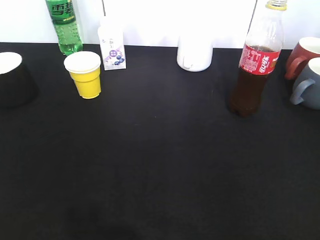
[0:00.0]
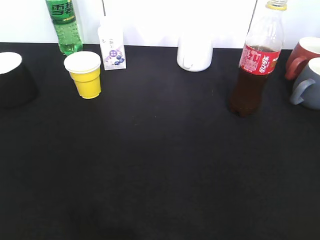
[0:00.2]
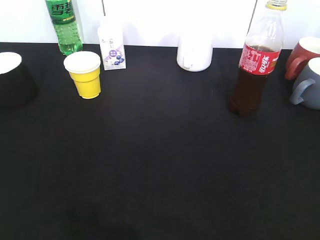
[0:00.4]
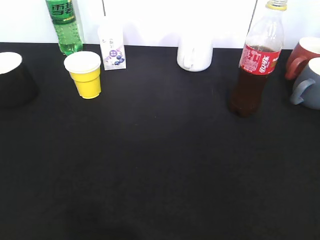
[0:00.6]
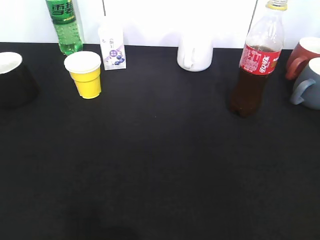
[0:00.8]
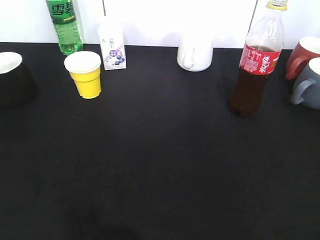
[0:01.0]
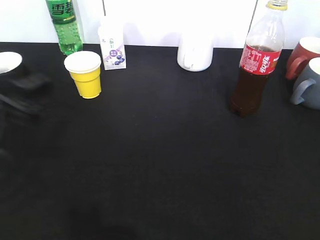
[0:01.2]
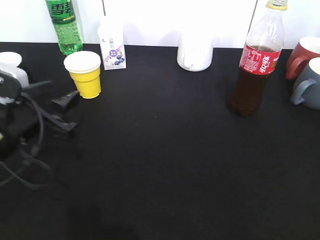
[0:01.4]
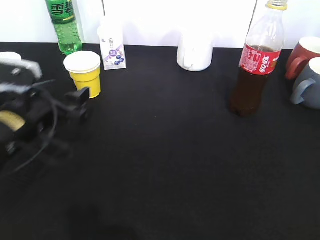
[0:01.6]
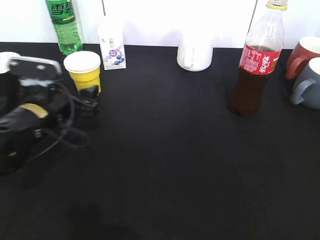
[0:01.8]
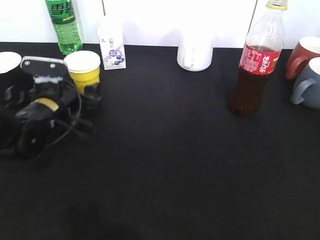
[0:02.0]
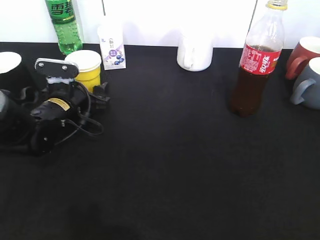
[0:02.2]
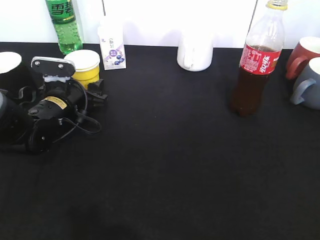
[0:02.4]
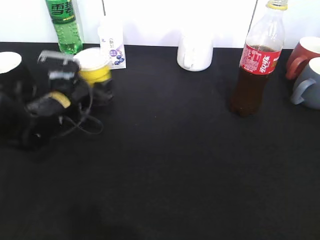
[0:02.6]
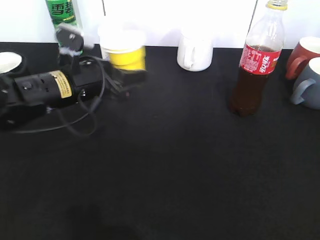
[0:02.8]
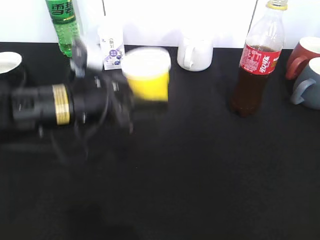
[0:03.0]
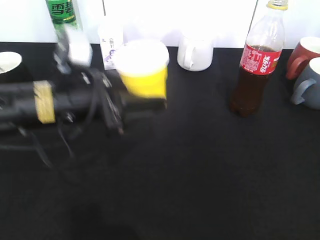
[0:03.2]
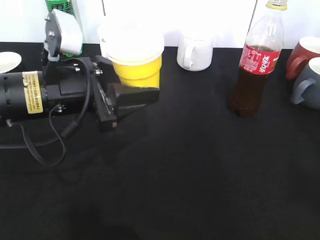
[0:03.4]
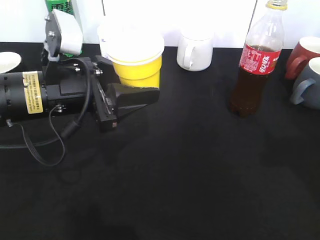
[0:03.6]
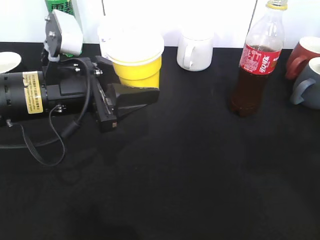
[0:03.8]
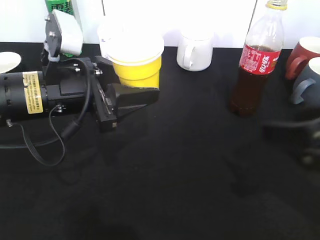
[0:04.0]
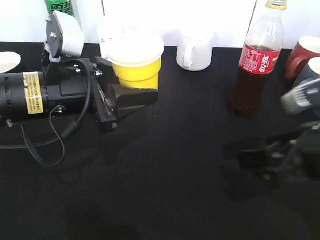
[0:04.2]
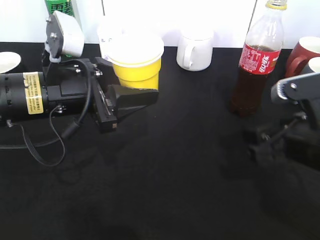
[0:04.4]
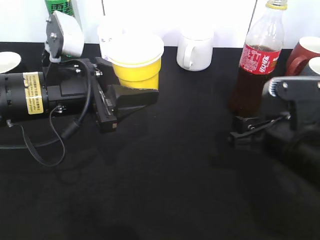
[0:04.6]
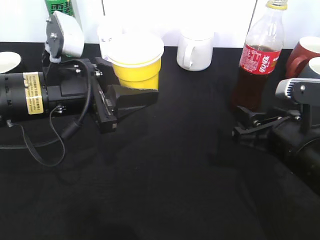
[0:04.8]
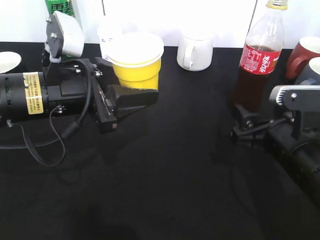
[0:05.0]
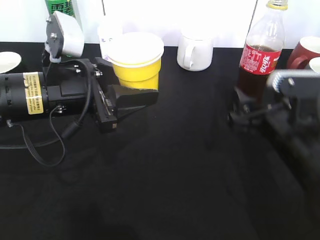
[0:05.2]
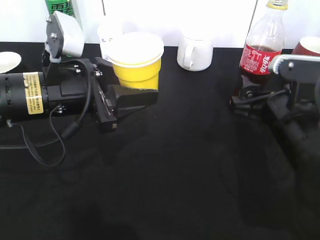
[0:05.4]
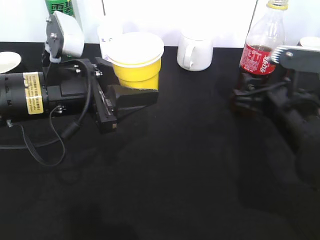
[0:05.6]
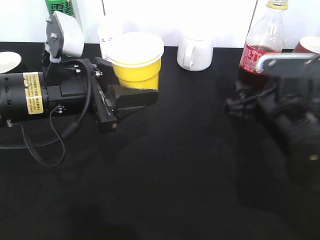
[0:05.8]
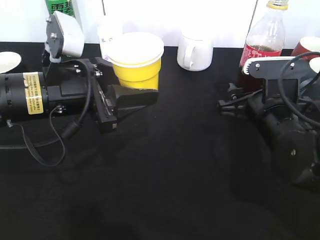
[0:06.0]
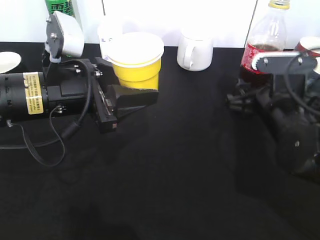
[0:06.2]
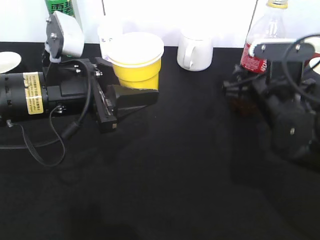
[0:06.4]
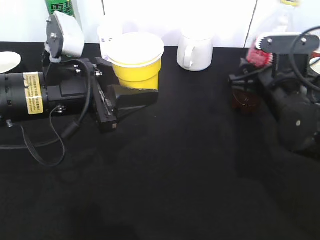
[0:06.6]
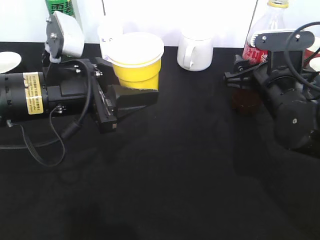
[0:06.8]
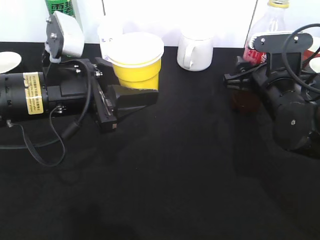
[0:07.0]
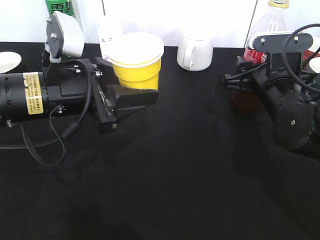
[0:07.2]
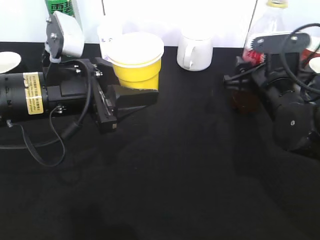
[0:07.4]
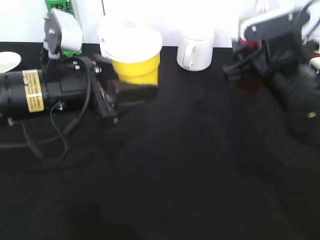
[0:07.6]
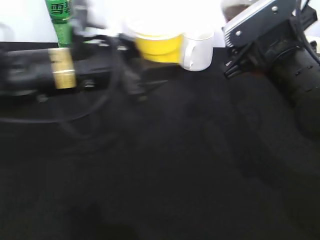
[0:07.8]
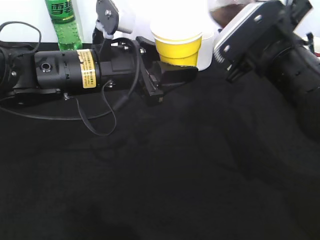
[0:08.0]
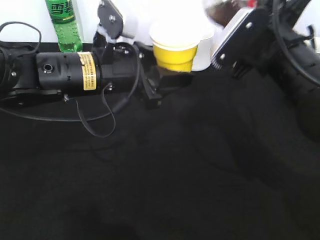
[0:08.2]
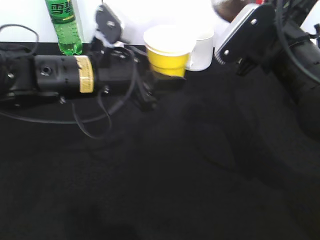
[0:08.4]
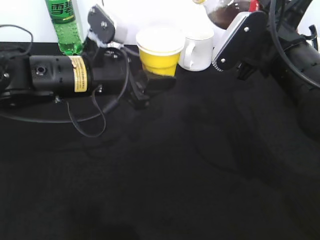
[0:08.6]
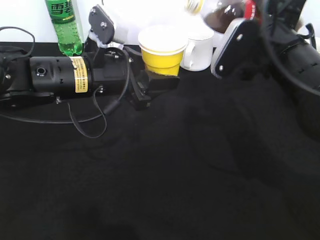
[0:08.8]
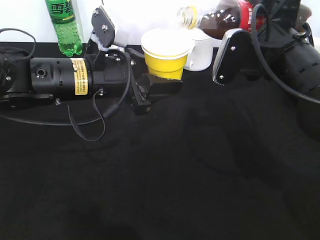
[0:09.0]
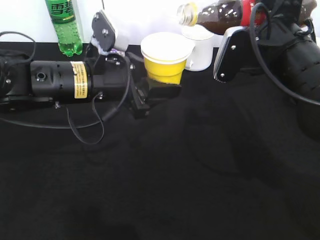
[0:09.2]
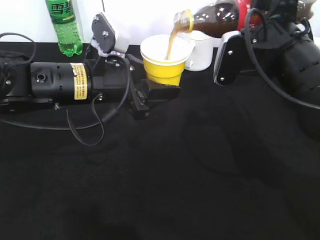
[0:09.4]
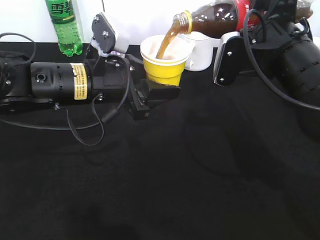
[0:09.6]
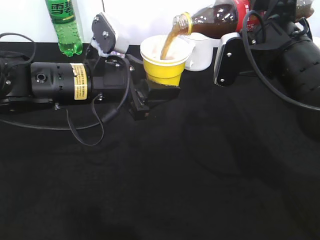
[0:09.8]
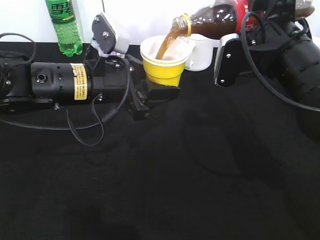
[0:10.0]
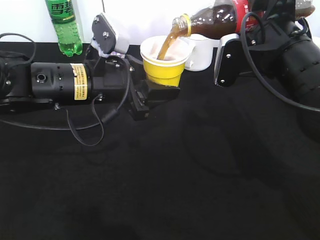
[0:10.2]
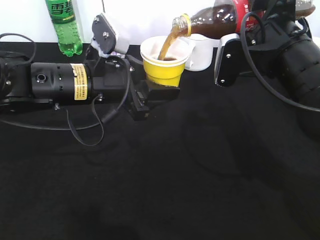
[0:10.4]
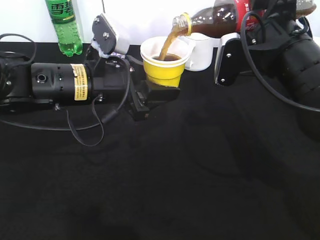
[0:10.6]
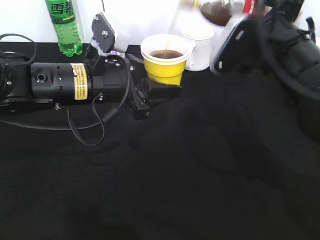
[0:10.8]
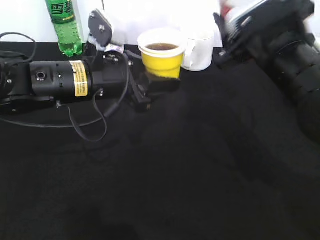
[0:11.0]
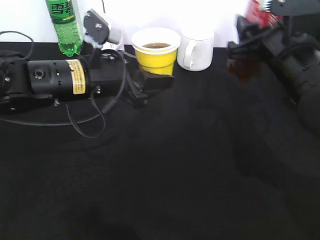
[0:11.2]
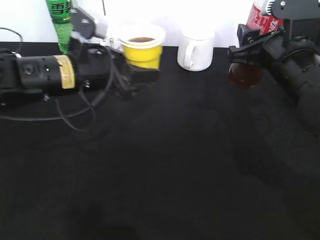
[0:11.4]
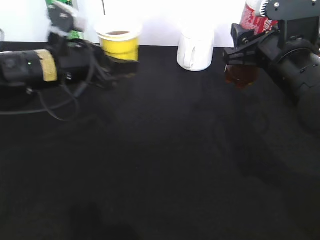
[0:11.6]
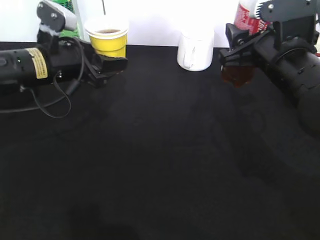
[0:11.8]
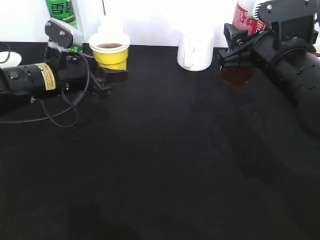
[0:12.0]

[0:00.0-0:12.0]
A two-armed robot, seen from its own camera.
Step, 0:00.0 to 0:02.2: Grasp the yellow paper cup with left gripper.
Step, 0:02.4 to 0:03.2: Lift the yellow paper cup with left gripper.
Step, 0:03.4 to 0:07.2: Grasp the bottle with cola with right gripper.
Step, 0:07.4 to 0:10.6: Pour the cola from bottle to cup with right gripper.
0:00.0 to 0:01.6: The left gripper travels forward, downward and to the right by approximately 30 cm, and opens.
0:01.6 to 0:03.0: The left gripper shifts roughly 10 cm to the right, goes forward and returns, some 10 cm each way, and closes its fingers.
0:03.0 to 0:04.4: The right gripper travels forward, downward and to the left by about 25 cm.
0:04.4 to 0:06.0: The right gripper shifts approximately 5 cm forward, and closes, then reopens.
0:06.0 to 0:07.6: The right gripper goes about 5 cm upward, and closes.
0:07.6 to 0:09.0: The left gripper shifts by approximately 5 cm.
0:09.0 to 0:10.4: The grippers stay close to where they were, moving slightly.
0:10.4 to 0:12.0: The left gripper travels to the left and forward by approximately 10 cm.

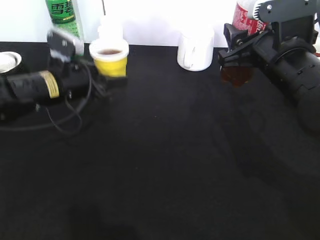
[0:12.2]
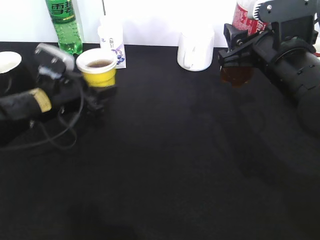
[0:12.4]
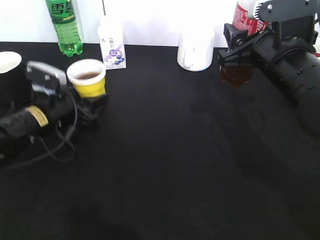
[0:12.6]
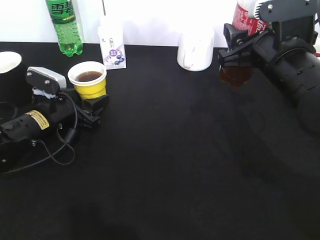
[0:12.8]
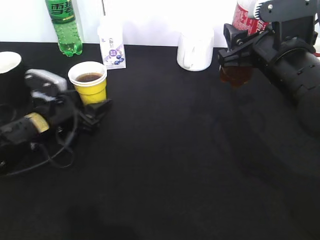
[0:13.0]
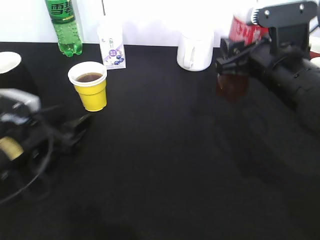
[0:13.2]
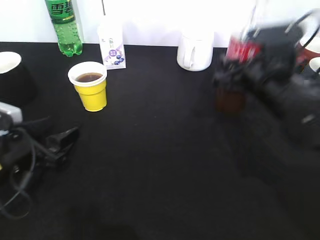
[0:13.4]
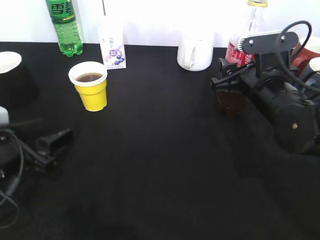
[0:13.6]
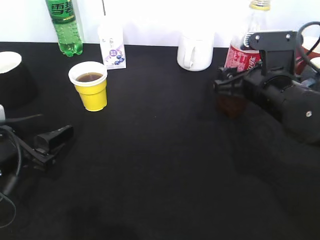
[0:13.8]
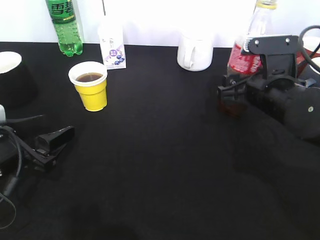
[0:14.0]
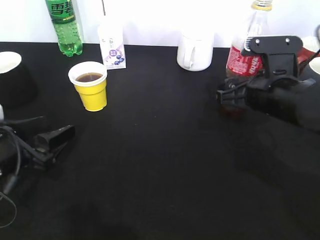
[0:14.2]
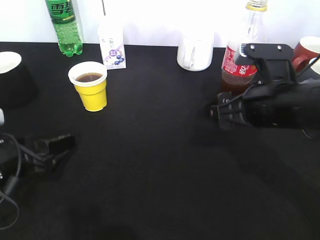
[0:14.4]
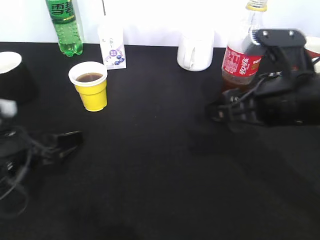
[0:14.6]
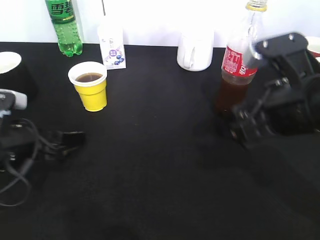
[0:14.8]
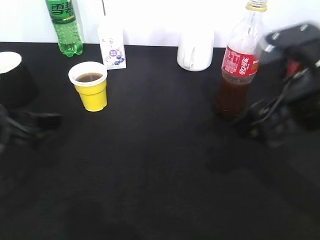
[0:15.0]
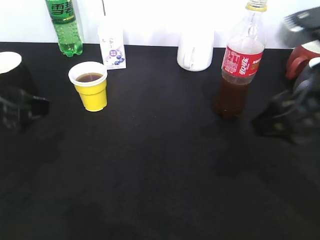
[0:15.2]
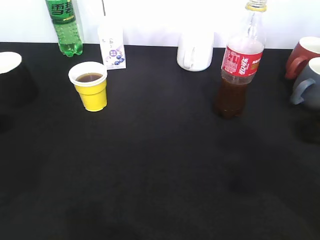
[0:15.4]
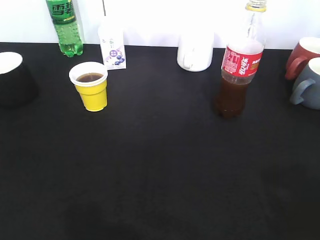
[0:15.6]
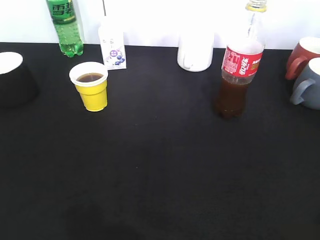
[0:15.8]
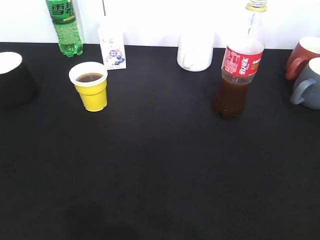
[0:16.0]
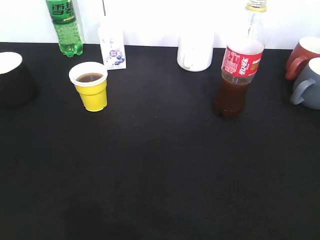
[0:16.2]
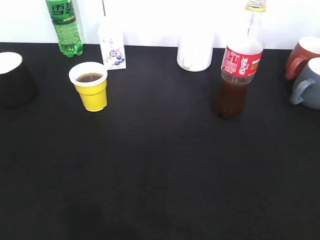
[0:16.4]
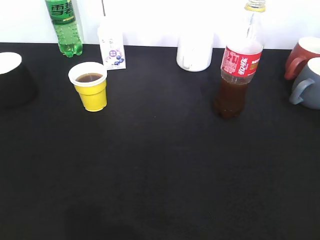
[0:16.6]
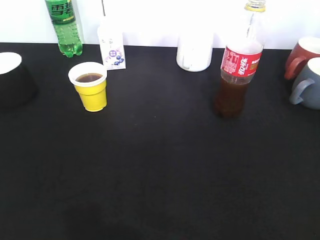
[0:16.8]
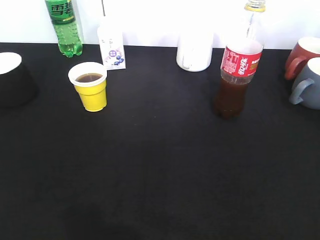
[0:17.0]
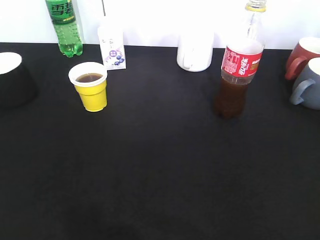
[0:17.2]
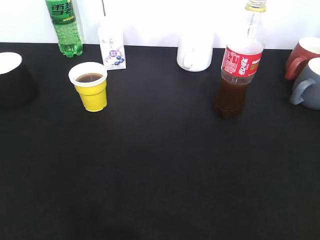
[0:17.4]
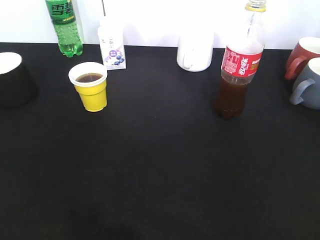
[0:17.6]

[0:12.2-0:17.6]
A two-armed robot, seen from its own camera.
Step, 0:13.4 to 0:14.8: Place the cola bottle on the table with right gripper.
0:12.2 to 0:13.6: The right gripper moves downward, about 5 cm; the left gripper goes approximately 15 cm backward and to the left, and opens its fingers.
0:13.6 to 0:15.0: The right gripper goes roughly 15 cm backward and upward, and opens up. The left gripper travels upward by approximately 5 cm.
0:15.0 to 0:16.2: The right gripper travels backward and to the right by about 25 cm. Meanwhile the left gripper travels backward, upward and to the left by some 25 cm.

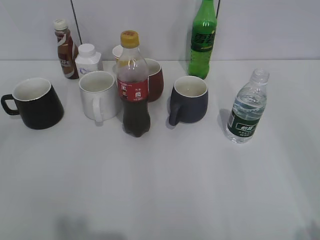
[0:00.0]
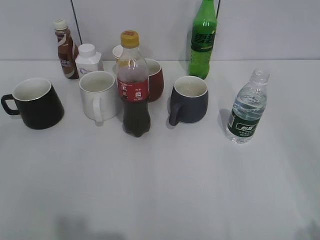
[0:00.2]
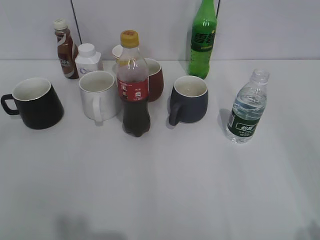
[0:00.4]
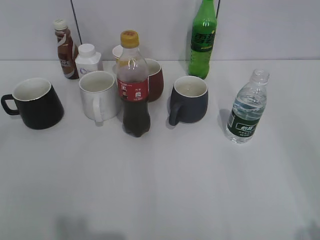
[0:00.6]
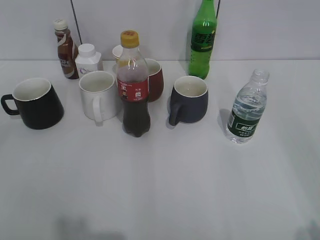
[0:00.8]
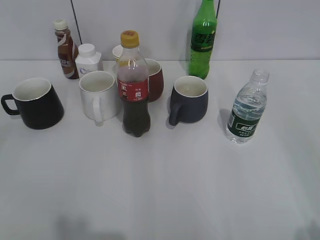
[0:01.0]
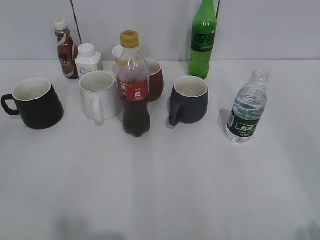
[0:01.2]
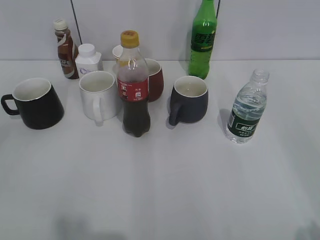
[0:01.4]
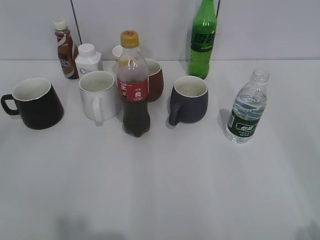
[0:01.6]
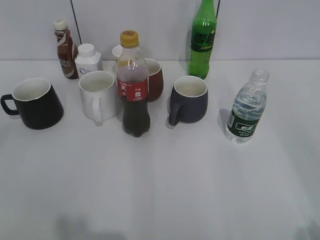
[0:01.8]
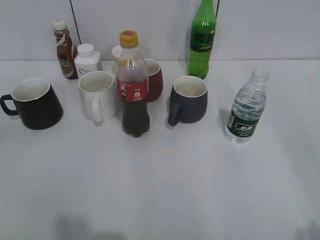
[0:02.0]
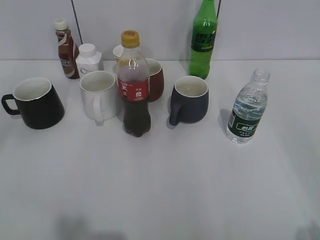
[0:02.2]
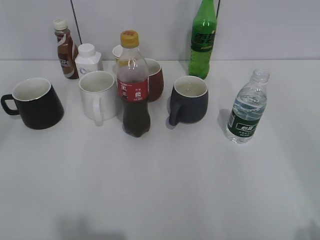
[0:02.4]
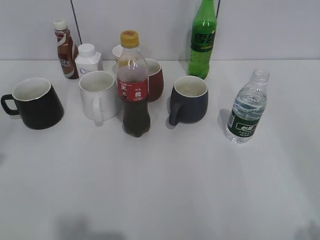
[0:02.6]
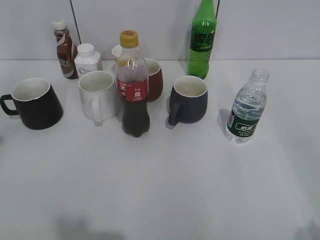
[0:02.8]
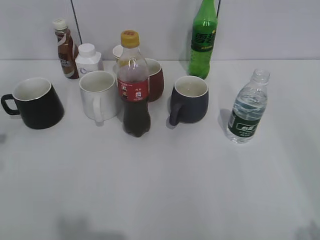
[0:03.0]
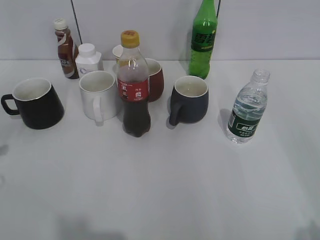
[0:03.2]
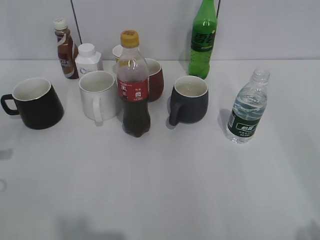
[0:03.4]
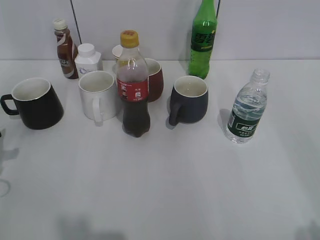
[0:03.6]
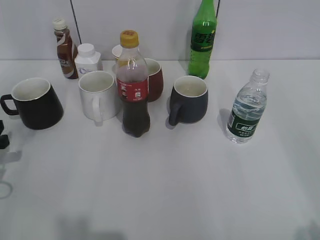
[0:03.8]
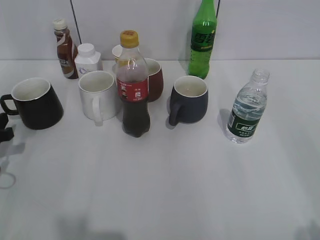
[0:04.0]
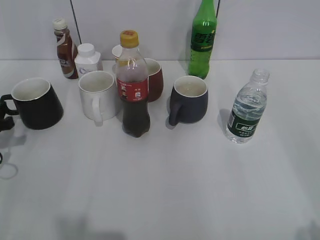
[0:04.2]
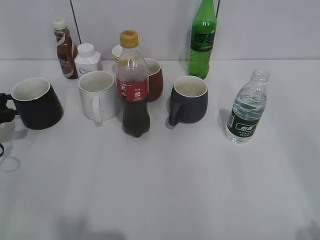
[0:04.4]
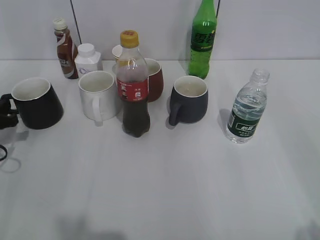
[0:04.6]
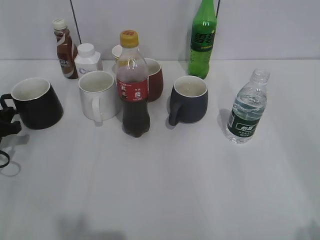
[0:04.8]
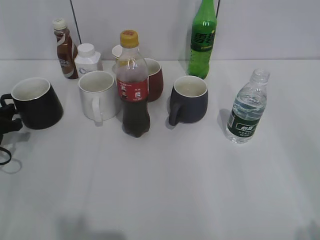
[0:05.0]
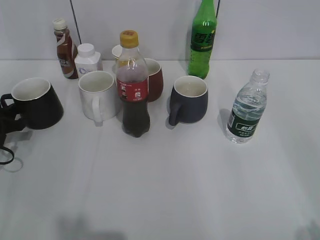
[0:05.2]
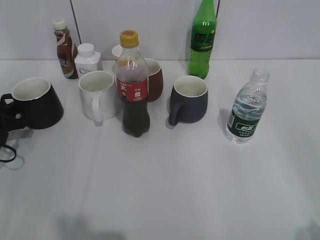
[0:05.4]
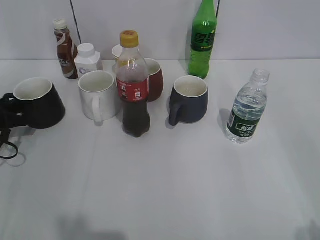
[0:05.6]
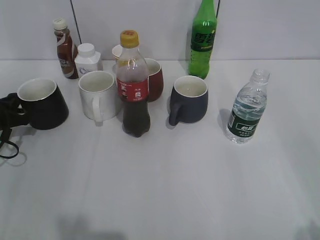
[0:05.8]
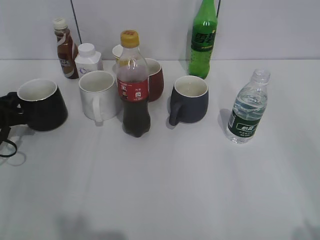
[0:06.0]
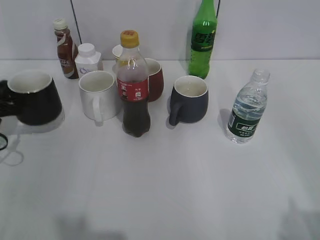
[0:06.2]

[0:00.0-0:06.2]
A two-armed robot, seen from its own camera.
Step, 0:01.8 to 0:05.8: Grasp the black cup with left gripper.
0:03.2 to 0:04.6: The left gripper shifts approximately 10 cm downward and forward.
0:04.6 to 0:06.2: The left gripper closes.
